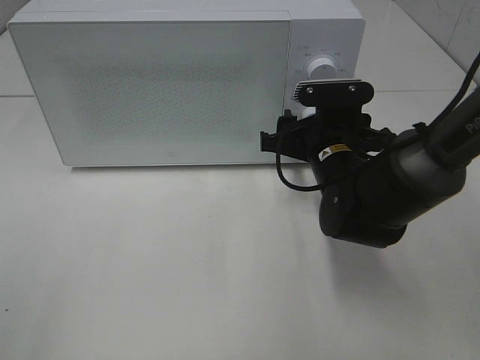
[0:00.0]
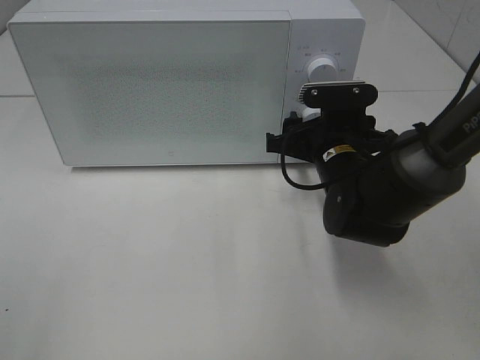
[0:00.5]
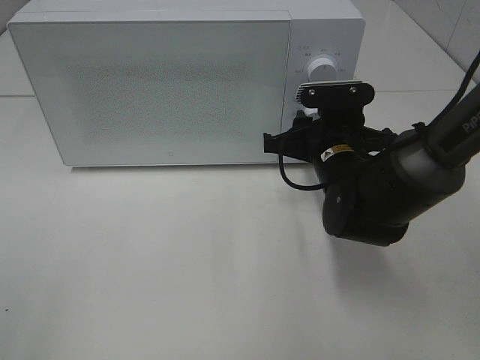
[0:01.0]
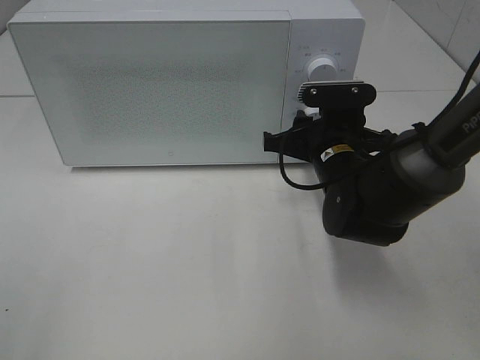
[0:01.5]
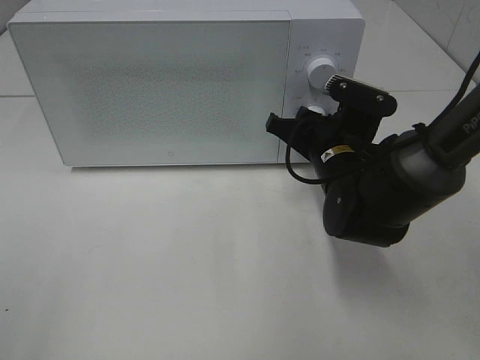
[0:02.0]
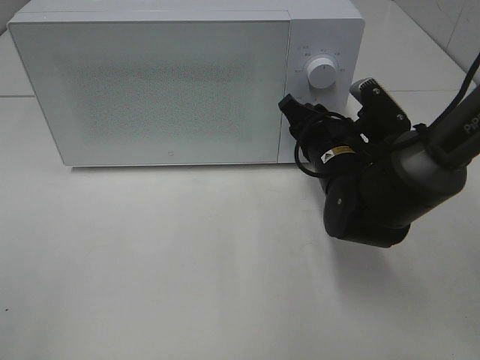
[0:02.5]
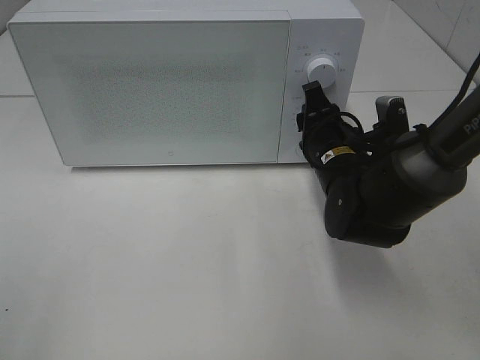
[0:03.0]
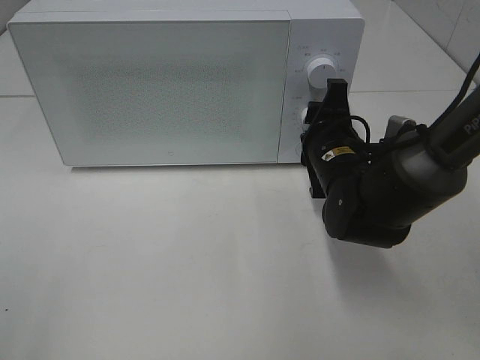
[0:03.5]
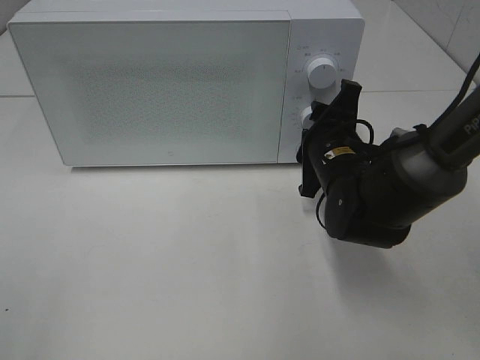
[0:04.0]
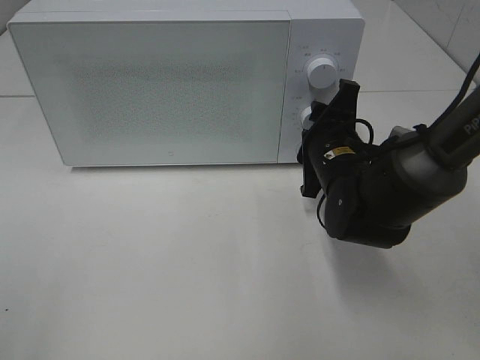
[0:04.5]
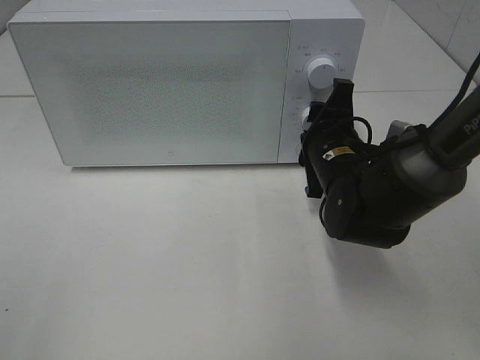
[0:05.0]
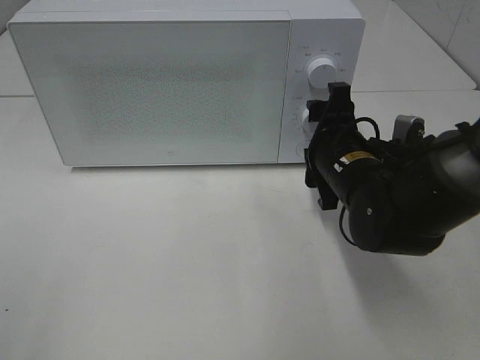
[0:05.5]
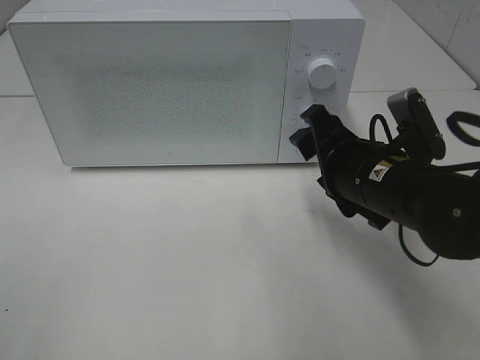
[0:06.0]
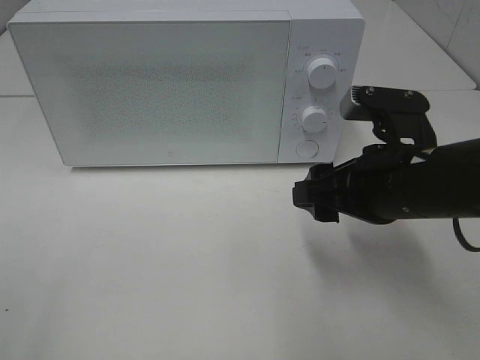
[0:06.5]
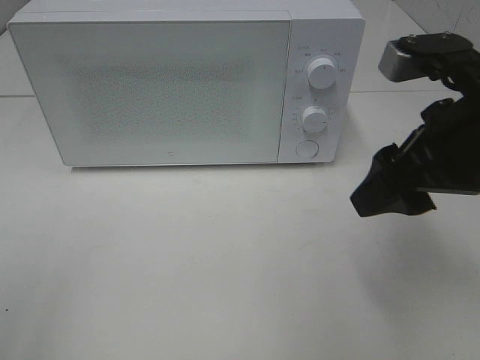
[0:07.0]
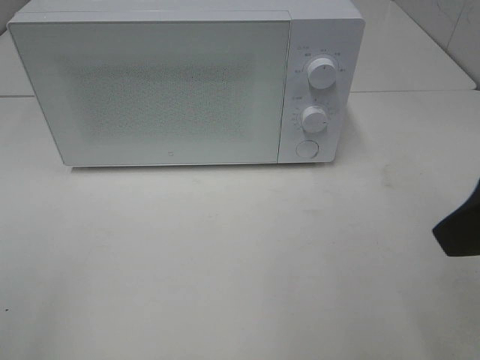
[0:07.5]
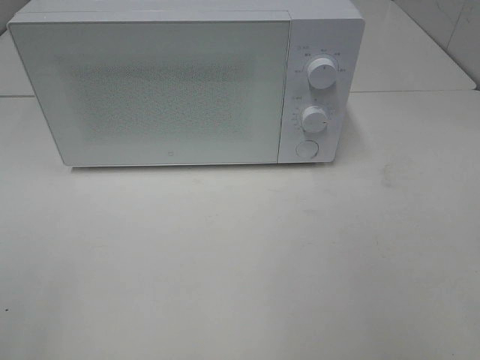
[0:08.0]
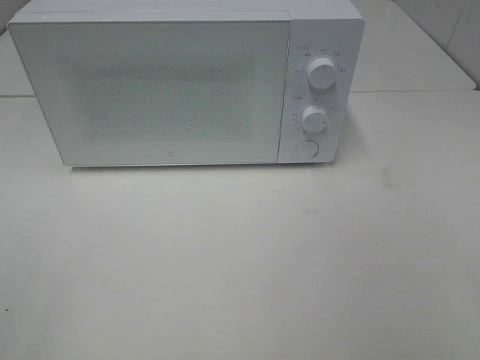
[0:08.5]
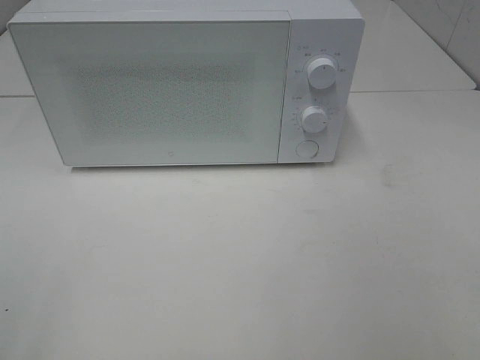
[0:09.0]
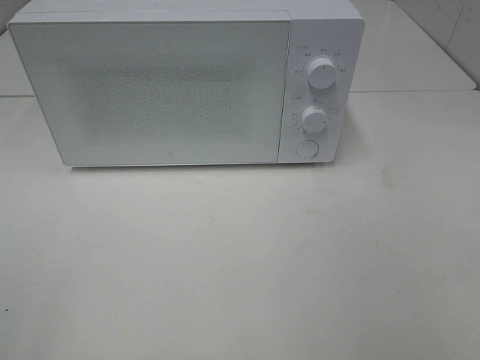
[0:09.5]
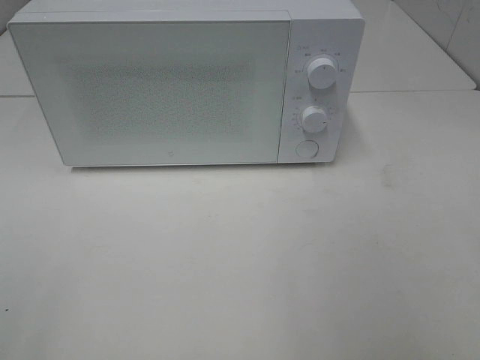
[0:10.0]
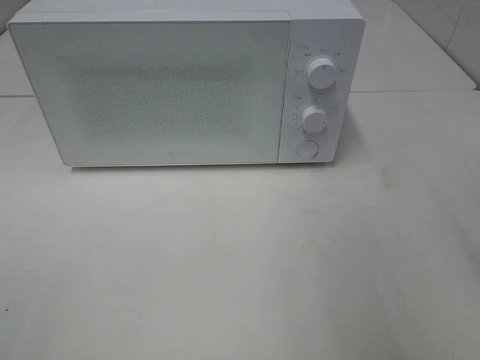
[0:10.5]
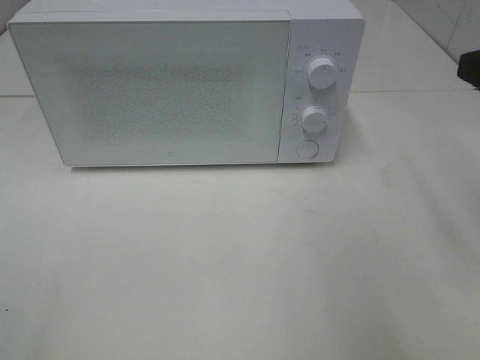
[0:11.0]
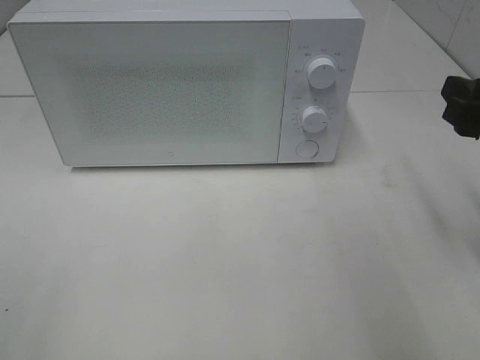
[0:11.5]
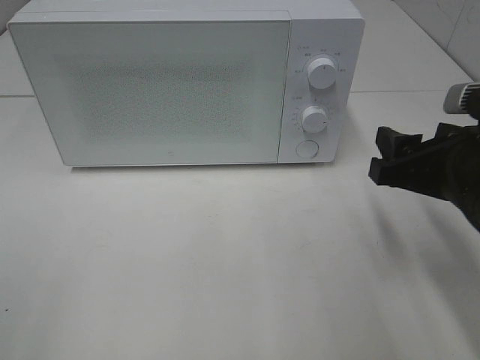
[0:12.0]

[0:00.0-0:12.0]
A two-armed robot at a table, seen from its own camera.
Task of the whole recording: Heat the burger.
Step, 0:00.0 to 0:05.0: Right hand: twist timer button.
0:04.0 to 0:06.0: The right gripper shifts roughly 5 cm backward.
0:06.0 to 0:08.0: The right gripper is displaced backward, upward and to the right by approximately 30 cm.
0:10.0 to 0:12.0: The right gripper shifts approximately 20 cm forward, downward and to the left.

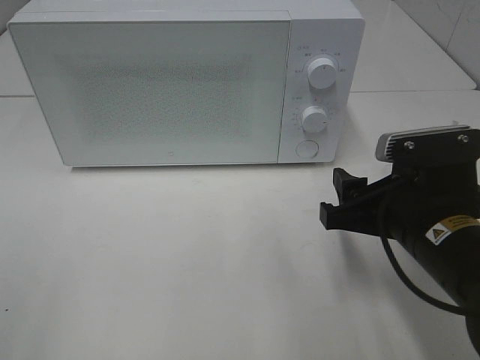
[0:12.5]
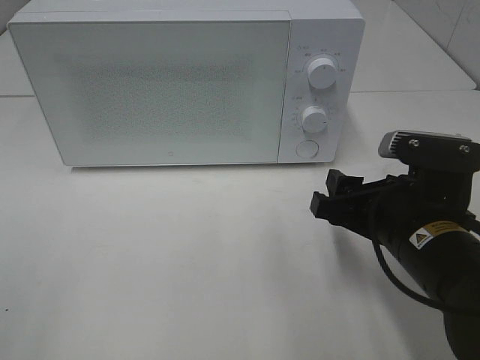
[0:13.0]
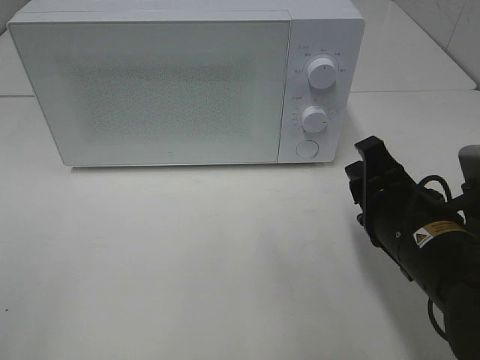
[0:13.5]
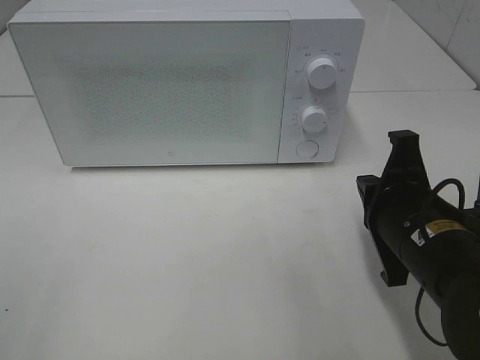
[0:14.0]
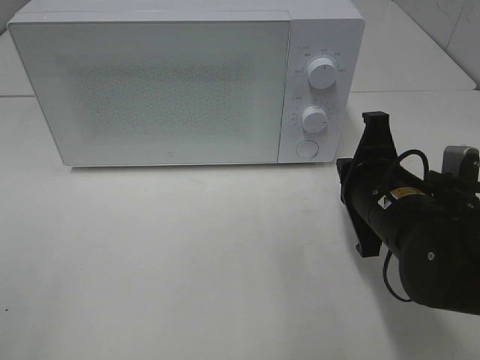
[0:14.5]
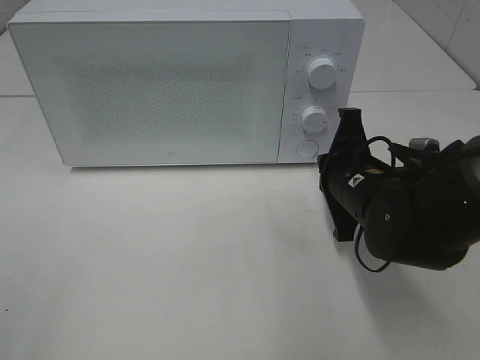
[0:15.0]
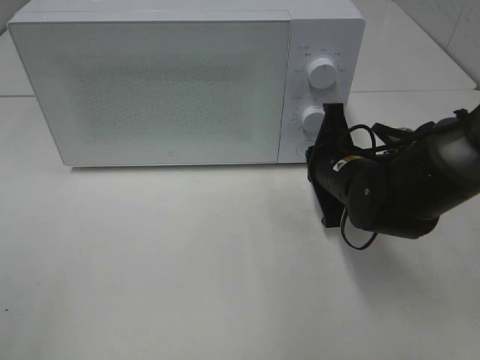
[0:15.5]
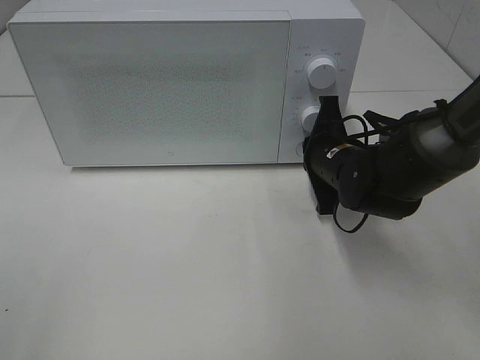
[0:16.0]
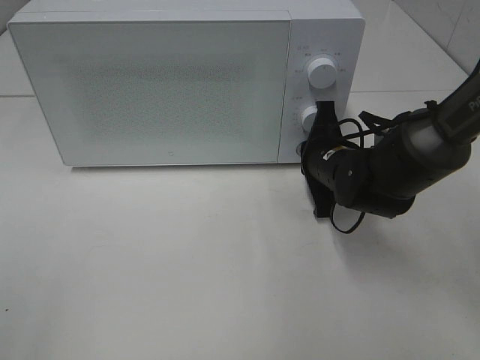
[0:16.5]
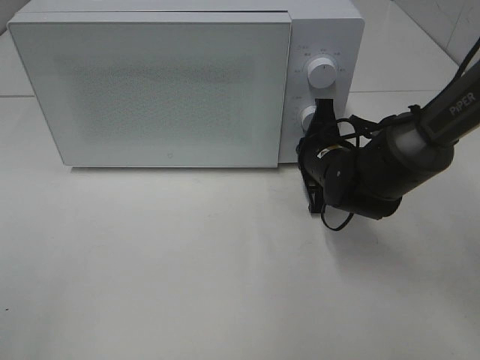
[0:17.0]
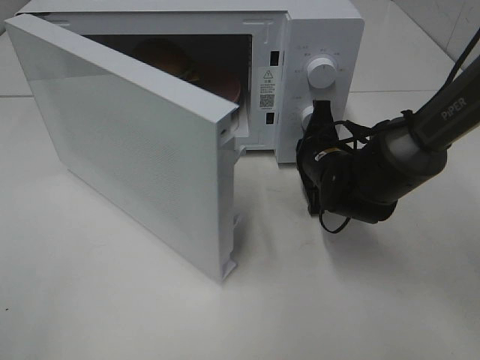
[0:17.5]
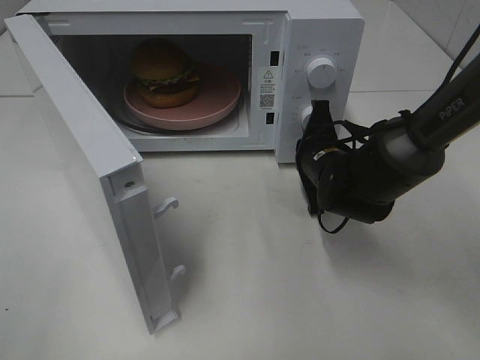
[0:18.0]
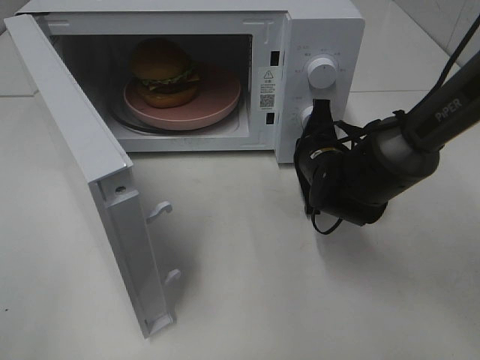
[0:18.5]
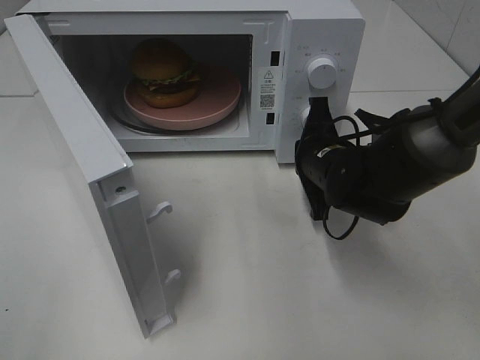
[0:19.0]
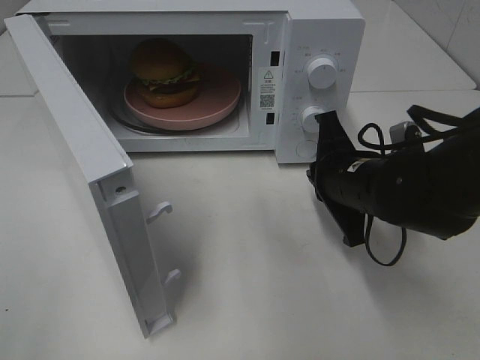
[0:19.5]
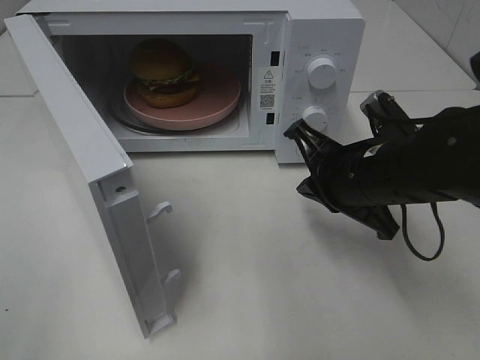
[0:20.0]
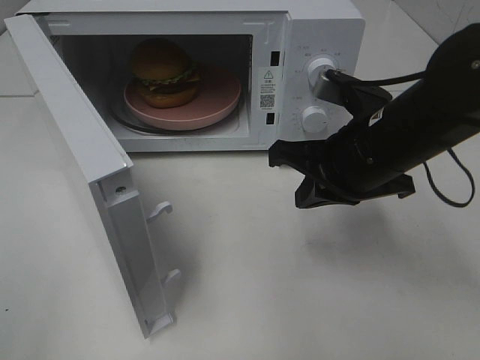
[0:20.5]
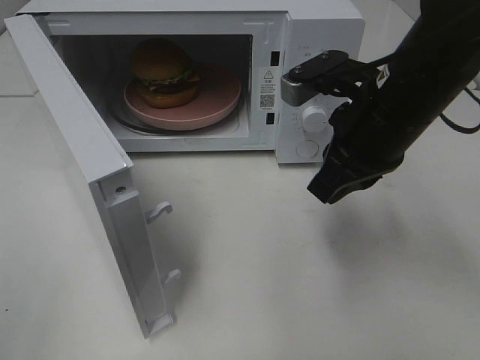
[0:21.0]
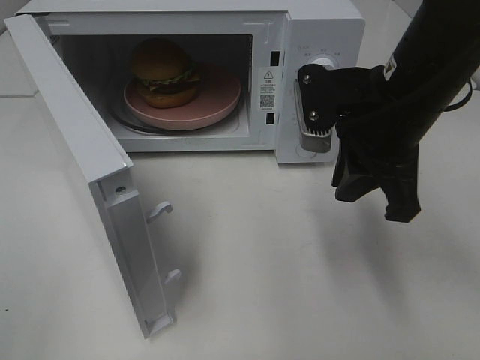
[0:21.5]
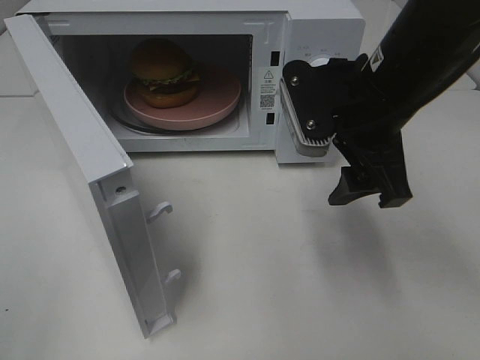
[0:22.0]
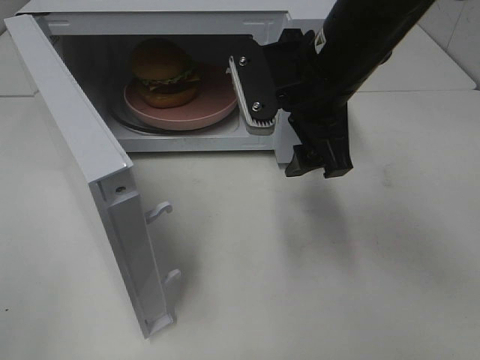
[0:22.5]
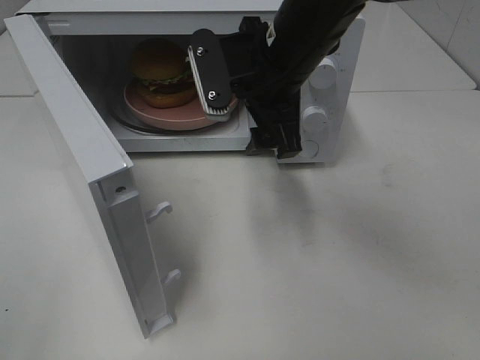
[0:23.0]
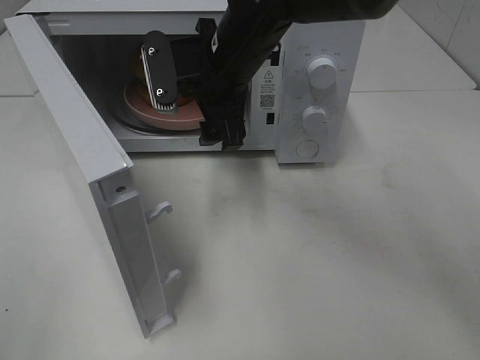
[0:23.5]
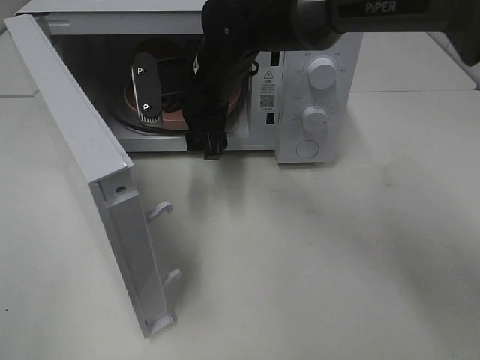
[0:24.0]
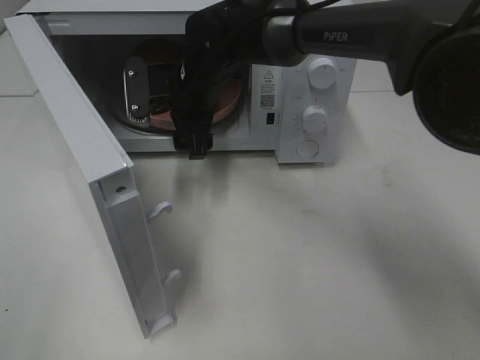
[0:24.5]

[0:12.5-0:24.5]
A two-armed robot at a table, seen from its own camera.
Task of the whole recording: Heat the burger.
Step, 0:12.5 to 0:19.0: Right hand: press the switch.
0:12.5 to 0:14.5: The right gripper closes up.
0:14.5 to 0:16.5: The right gripper shifts about 10 cm forward.
0:18.5 to 0:20.5: The right gripper heads upward and backward, covering approximately 15 cm.
0:20.5 to 0:22.5: The right gripper moves upward and to the left, roughly 10 cm, and opens up.
0:22.5 to 0:24.5: The right gripper moves to the left, forward and downward, some 20 cm.

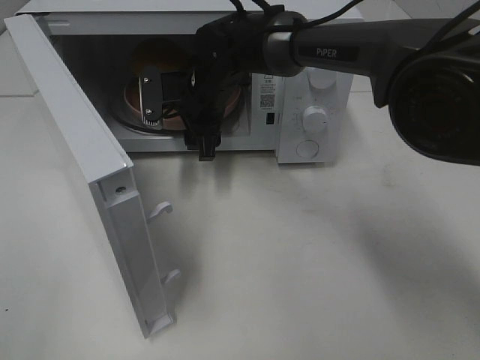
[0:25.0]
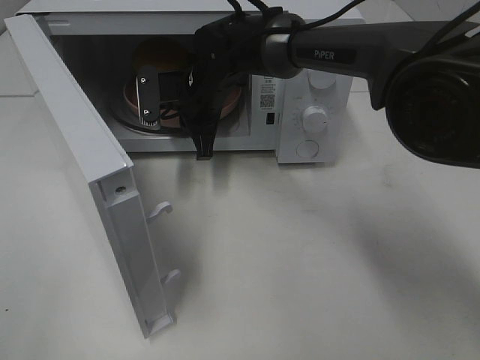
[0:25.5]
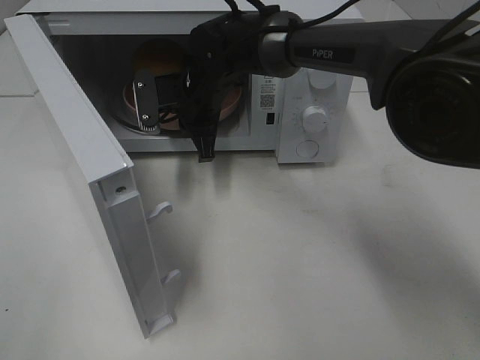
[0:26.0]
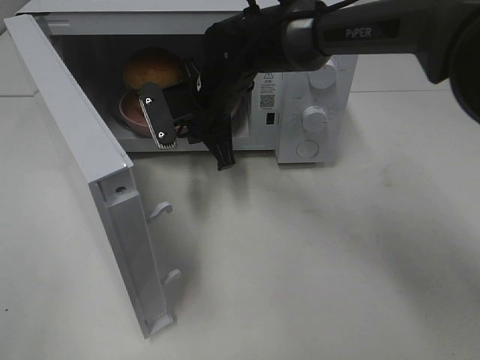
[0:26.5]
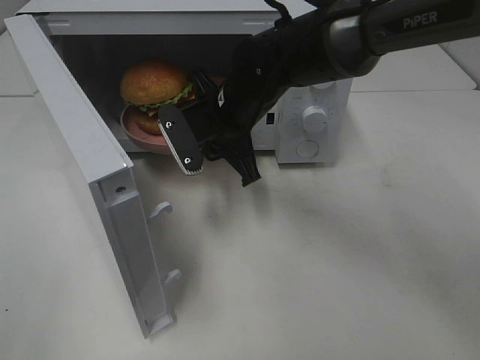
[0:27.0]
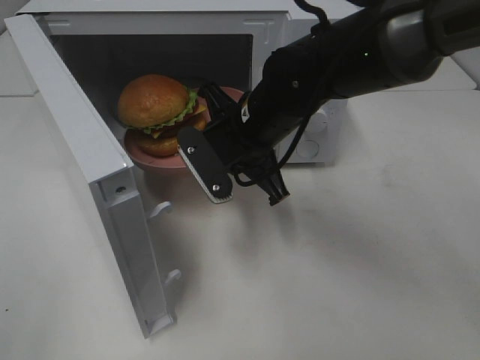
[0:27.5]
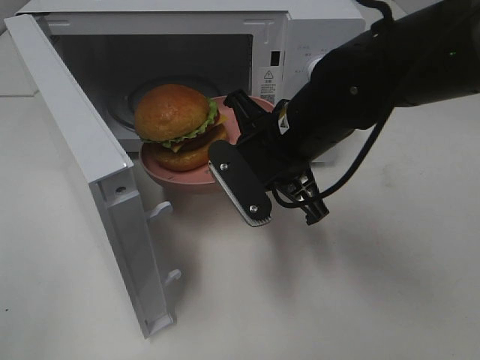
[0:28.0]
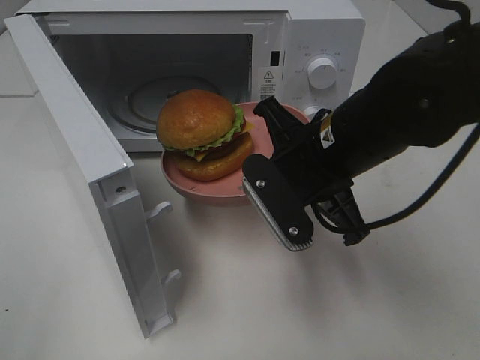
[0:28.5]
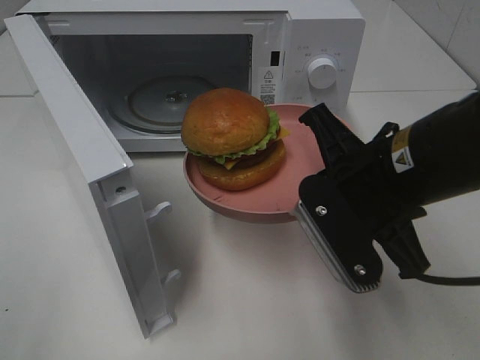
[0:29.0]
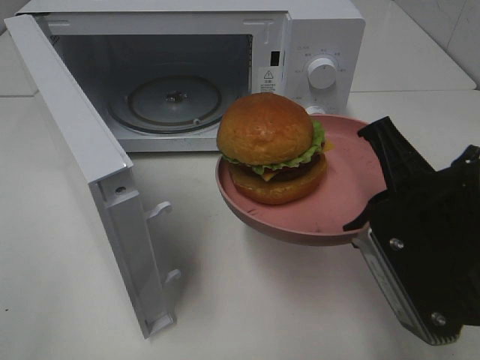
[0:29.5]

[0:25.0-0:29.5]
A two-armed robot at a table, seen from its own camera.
Task of the whole recording: Heat the burger.
0:25.0 to 0:27.0: The right gripper is displaced backward by some 5 cm, and closes.
0:27.0 to 0:29.5: The right gripper goes some 25 cm backward and to the right.
